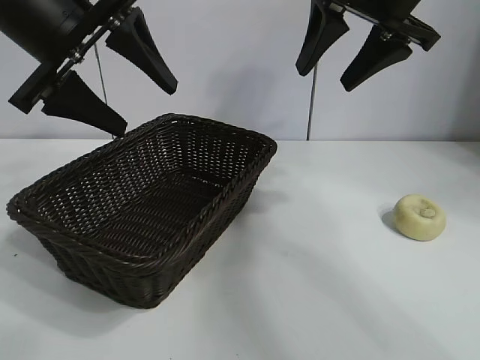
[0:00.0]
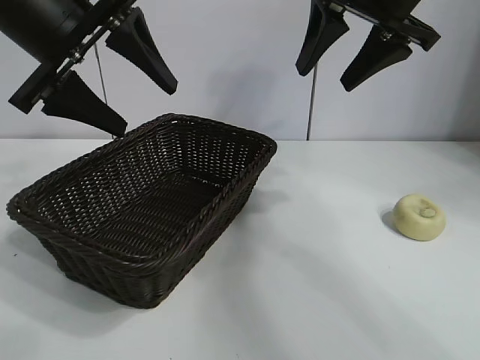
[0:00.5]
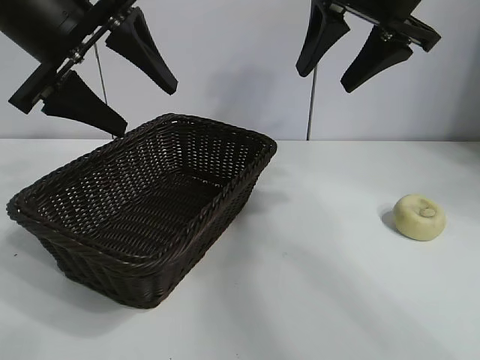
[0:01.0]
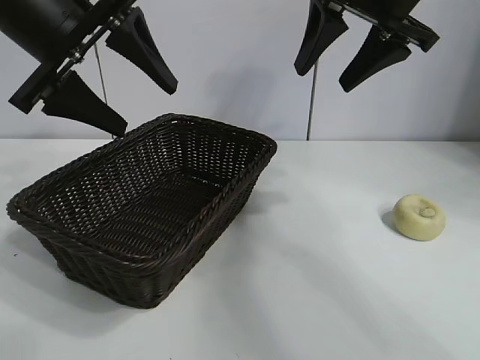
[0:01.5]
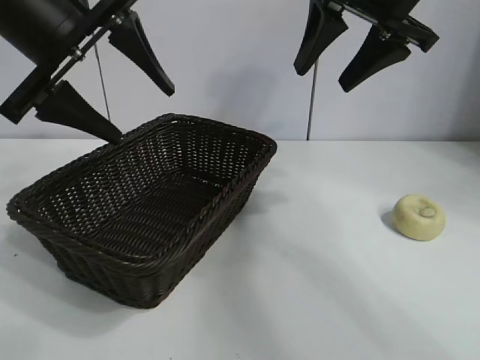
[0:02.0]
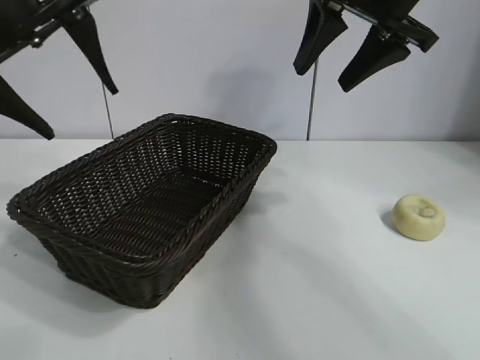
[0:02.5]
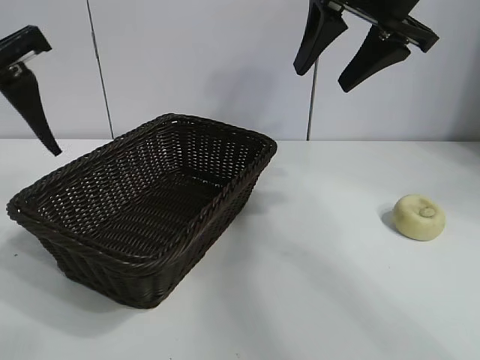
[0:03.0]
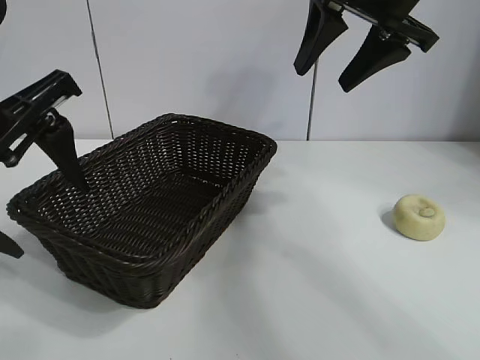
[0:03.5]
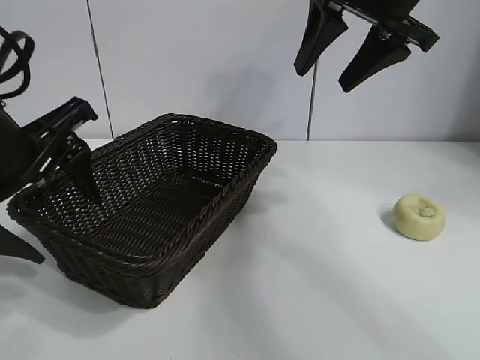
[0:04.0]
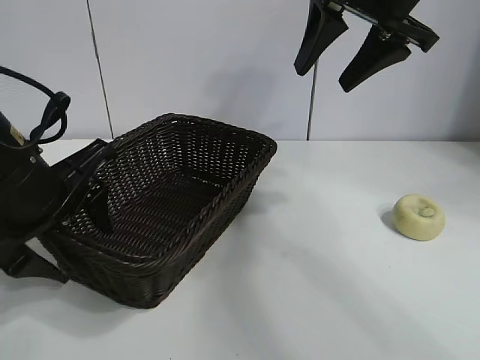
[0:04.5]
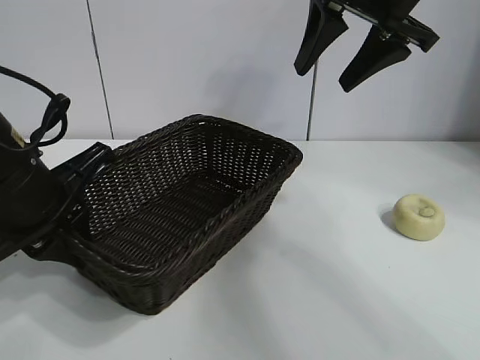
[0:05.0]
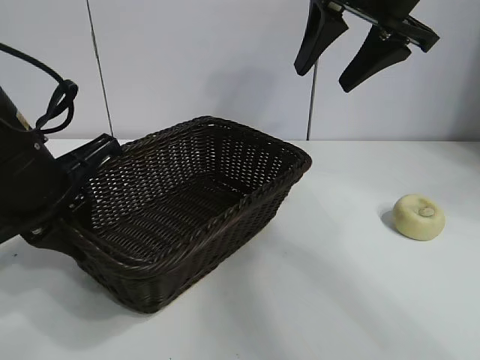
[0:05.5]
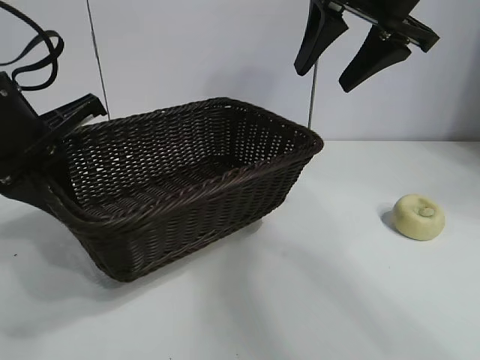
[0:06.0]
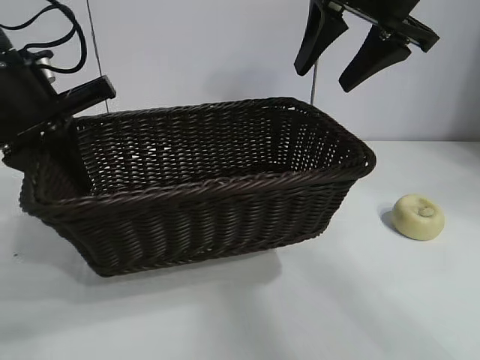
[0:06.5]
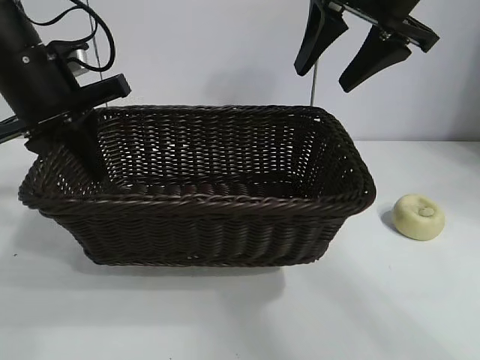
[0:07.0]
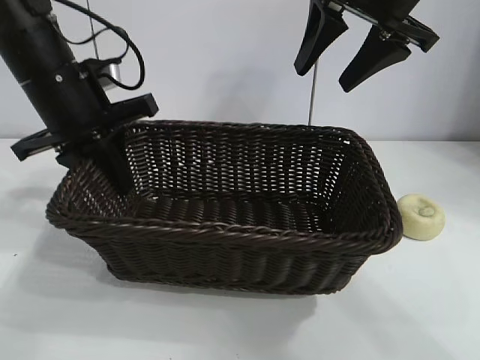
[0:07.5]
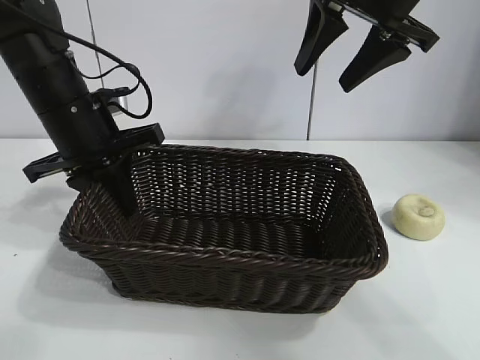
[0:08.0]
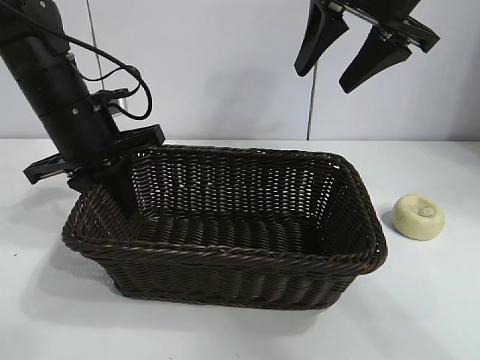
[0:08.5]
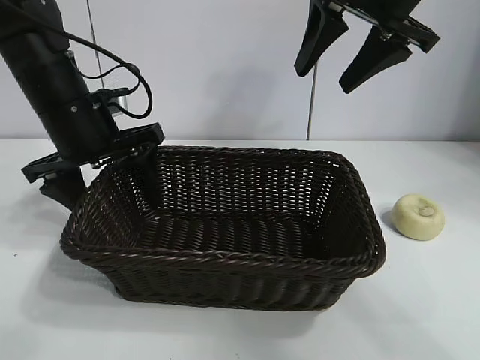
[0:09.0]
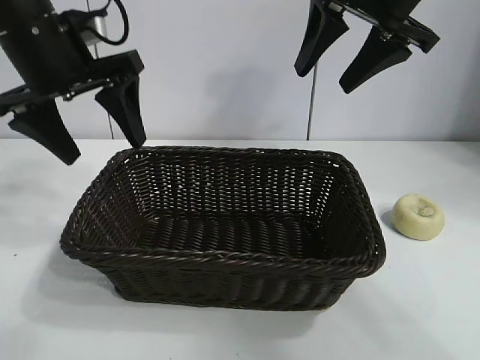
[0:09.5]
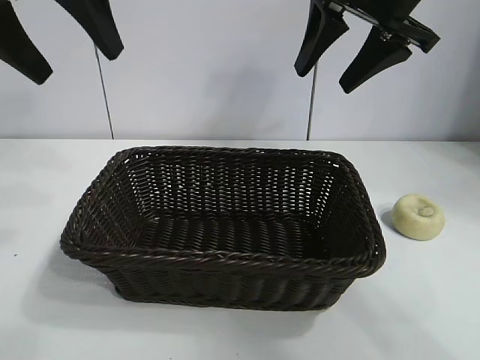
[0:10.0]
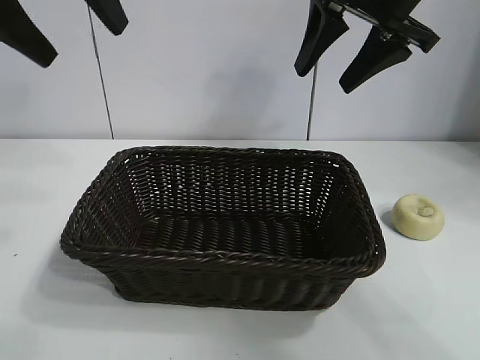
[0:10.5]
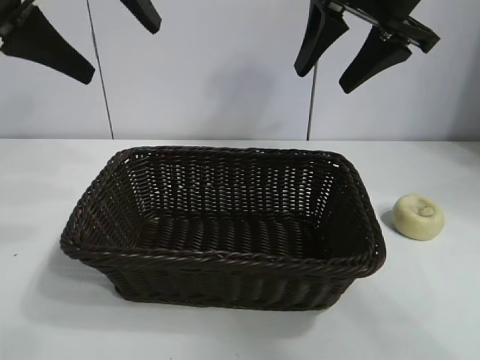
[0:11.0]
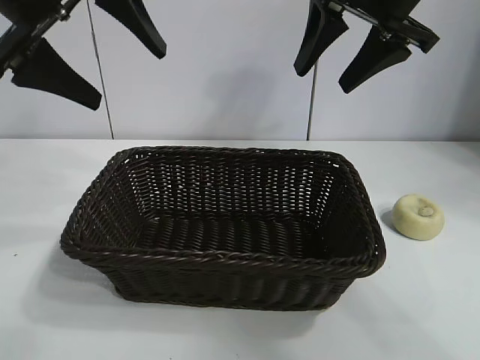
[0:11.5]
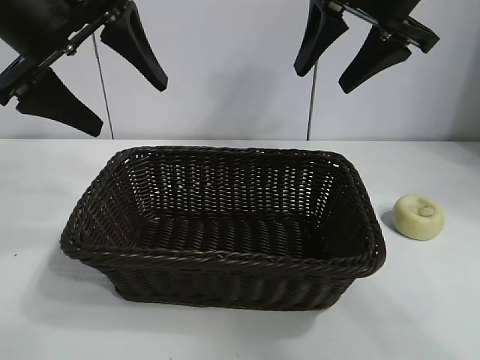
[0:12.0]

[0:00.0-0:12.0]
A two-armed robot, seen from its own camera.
Task of the whole recording: pick up the egg yolk pastry and put it into the basket.
Step, 0:01.5 to 0:04.5: Grasp the basket with left gripper.
Step, 0:05.5 to 0:08.5: Place the basket in the center of view with left gripper.

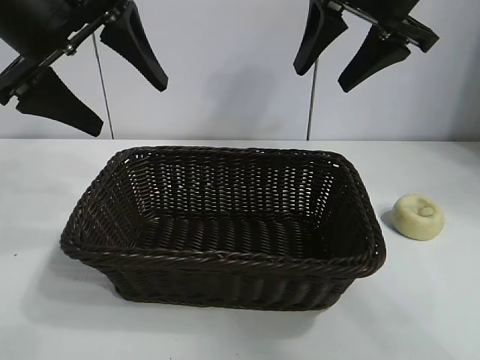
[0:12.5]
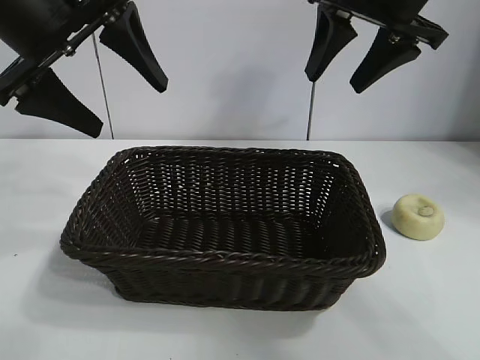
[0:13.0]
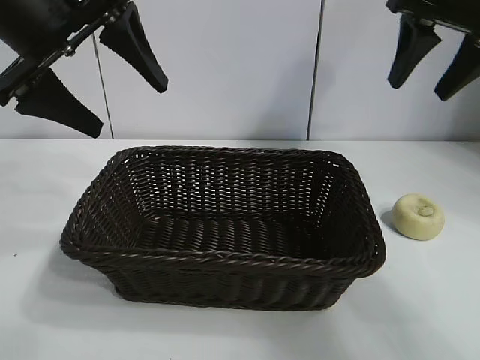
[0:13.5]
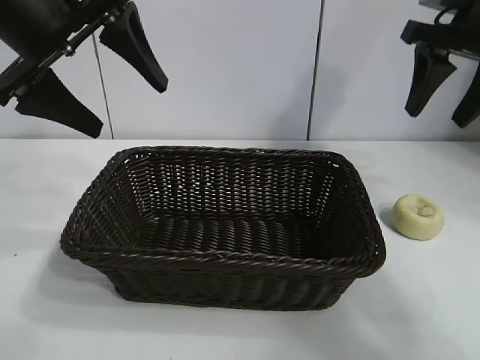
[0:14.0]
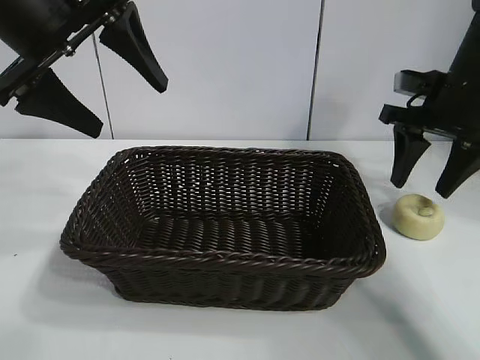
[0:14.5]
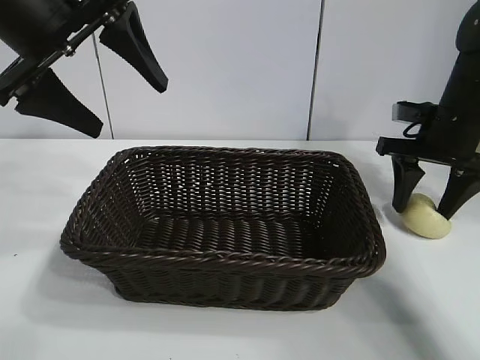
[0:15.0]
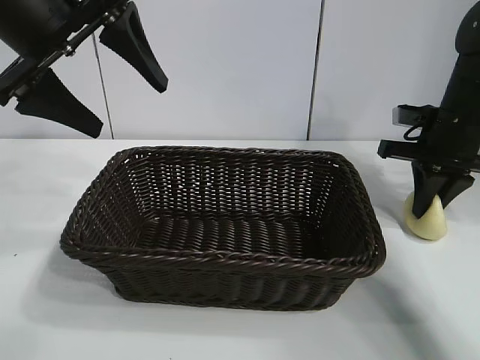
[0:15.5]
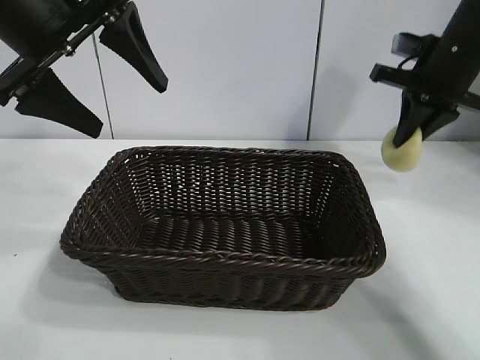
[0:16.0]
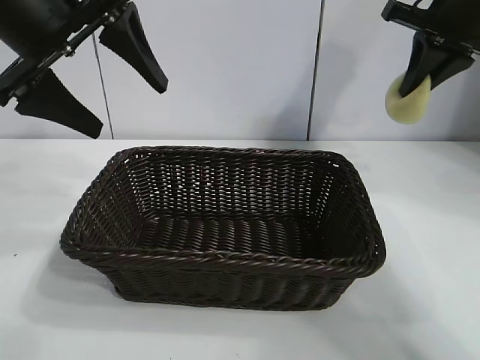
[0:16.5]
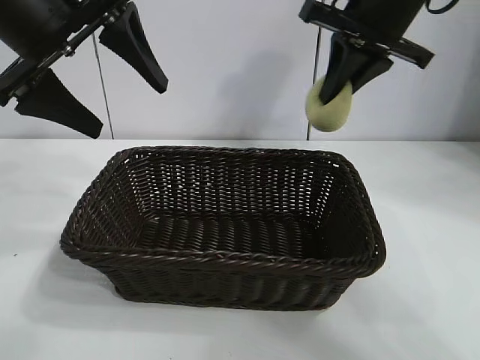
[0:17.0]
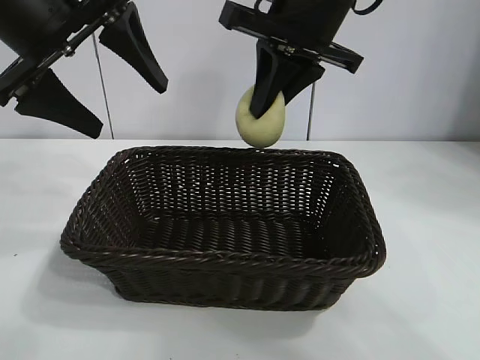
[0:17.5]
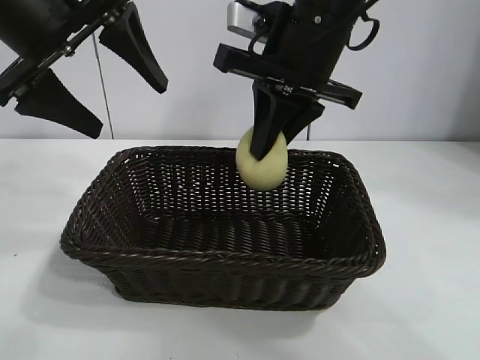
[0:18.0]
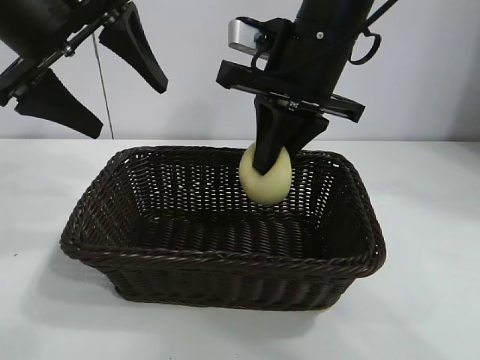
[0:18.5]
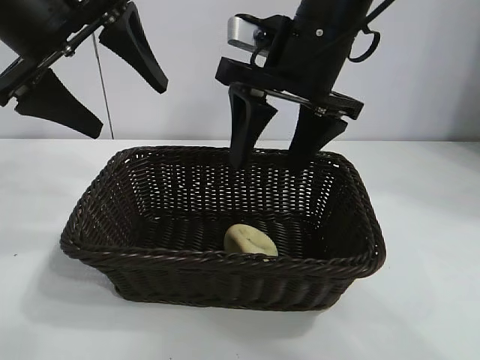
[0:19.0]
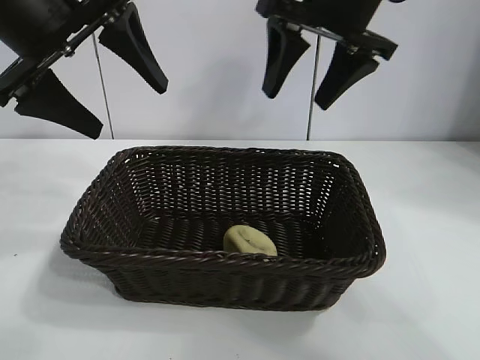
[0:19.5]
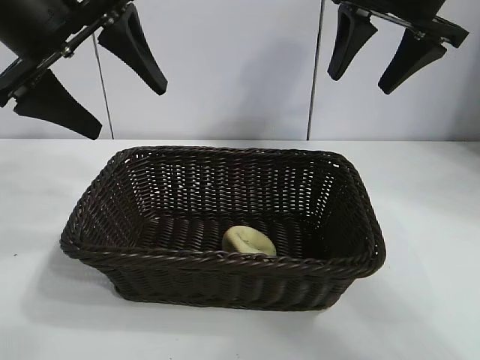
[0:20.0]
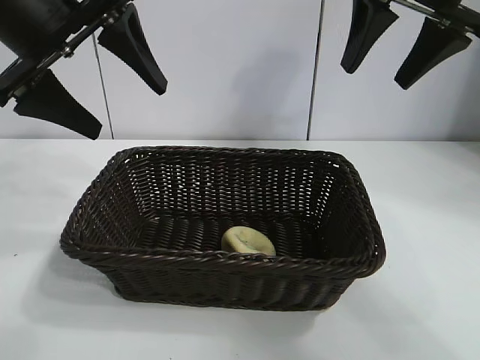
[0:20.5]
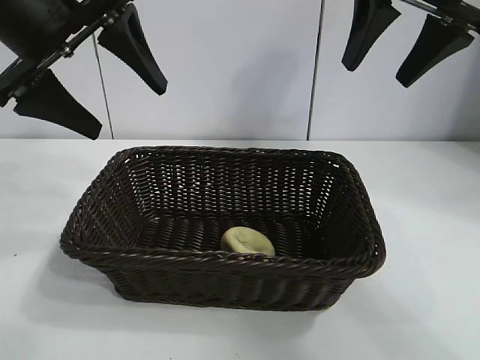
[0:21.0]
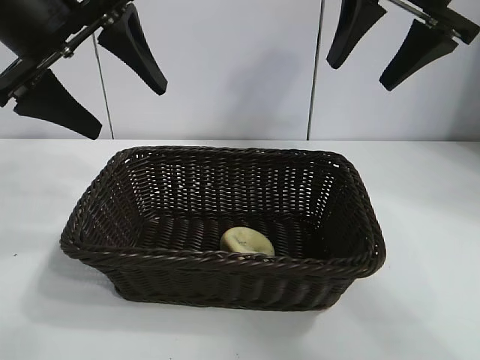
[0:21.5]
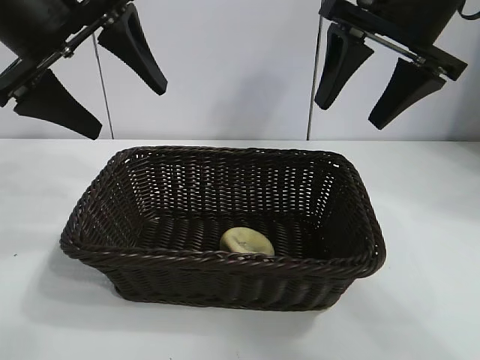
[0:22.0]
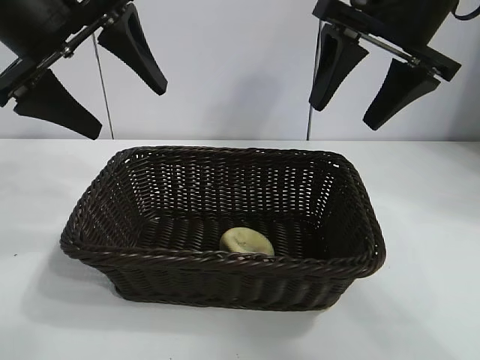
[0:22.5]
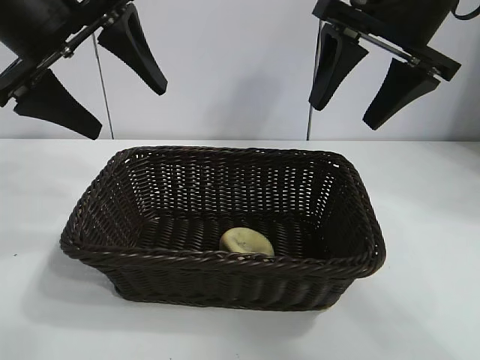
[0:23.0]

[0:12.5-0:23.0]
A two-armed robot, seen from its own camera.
Task of the whole recording: pick up the egg yolk pastry and put it into the basket.
Step, 0:12.5 to 0:15.0: Grasp egg yolk pastry with right gripper.
Step, 0:15.5 to 0:18.5: Place the egg yolk pastry in the basket with right gripper.

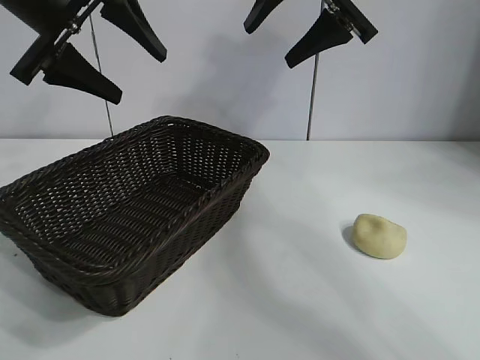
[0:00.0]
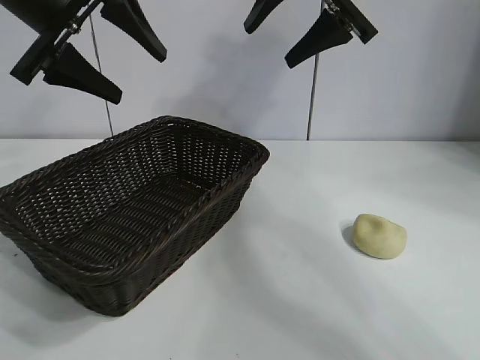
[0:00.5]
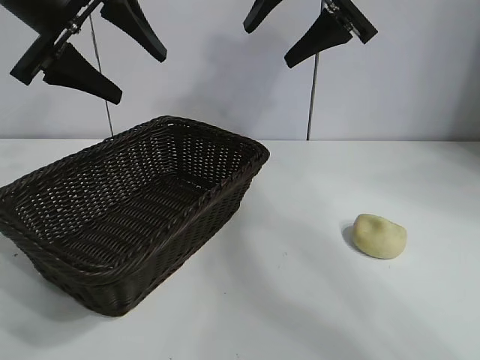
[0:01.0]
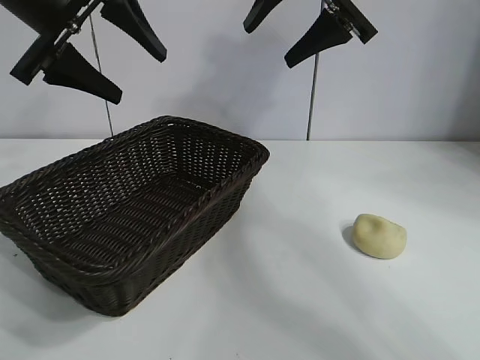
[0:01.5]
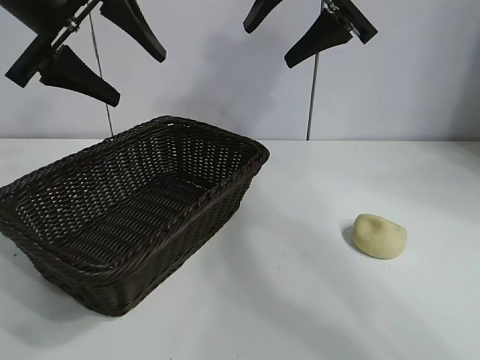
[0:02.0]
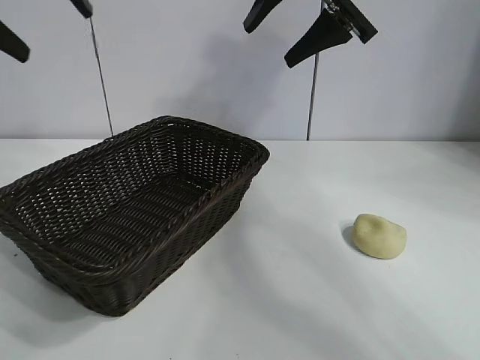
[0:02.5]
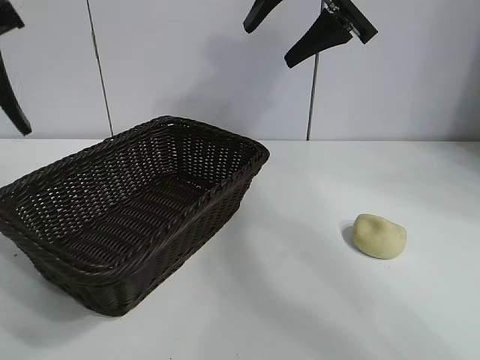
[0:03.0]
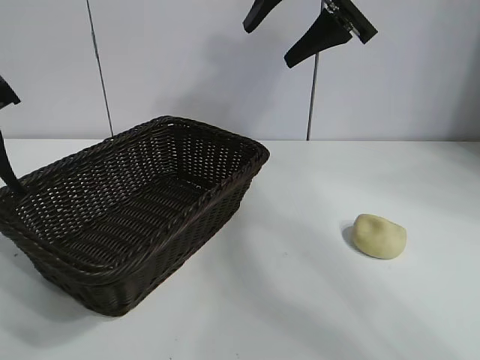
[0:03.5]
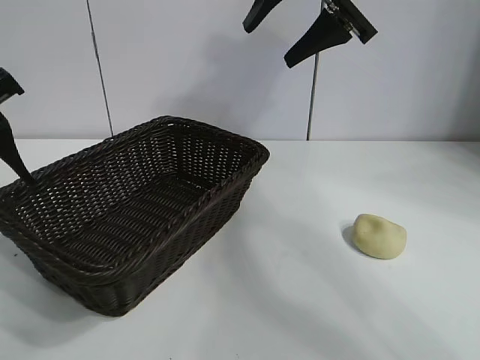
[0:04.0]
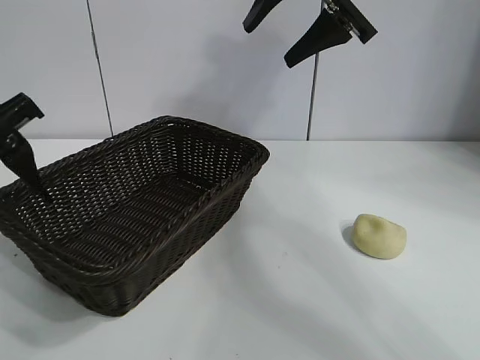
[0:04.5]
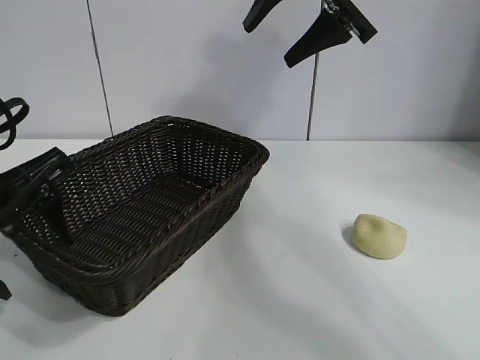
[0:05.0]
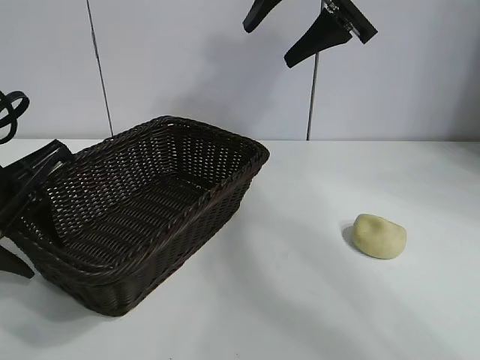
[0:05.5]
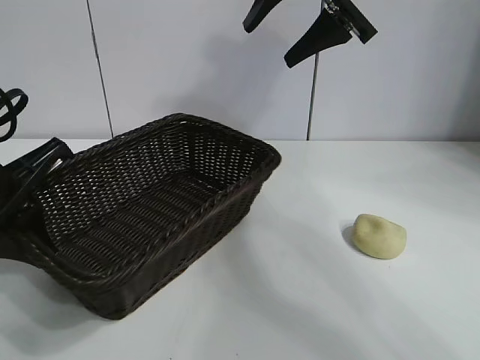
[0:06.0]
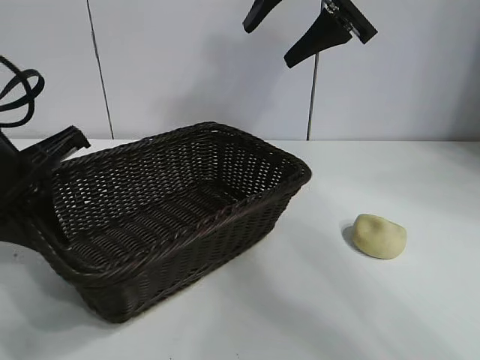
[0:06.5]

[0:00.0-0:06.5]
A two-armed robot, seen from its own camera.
Task of the whole recording: pick up the egg yolk pastry and put it into the basket.
Step, 0:02.0 to 0:05.5: Grasp the basket with left gripper.
